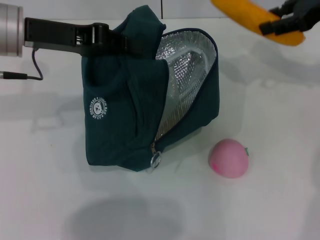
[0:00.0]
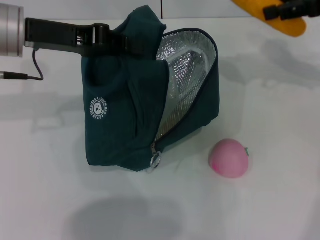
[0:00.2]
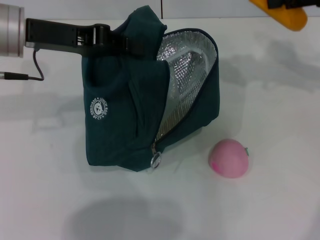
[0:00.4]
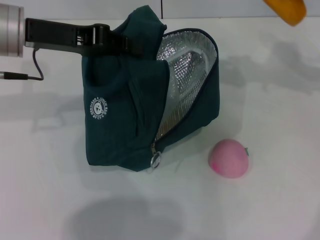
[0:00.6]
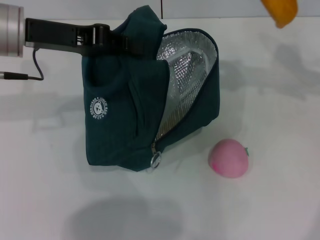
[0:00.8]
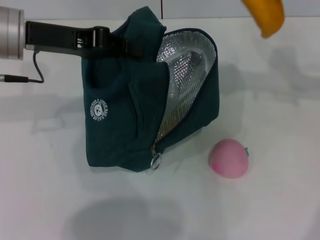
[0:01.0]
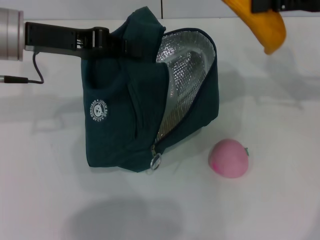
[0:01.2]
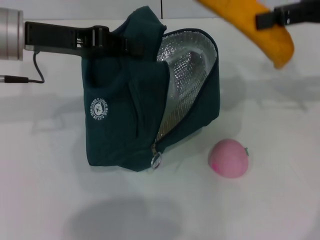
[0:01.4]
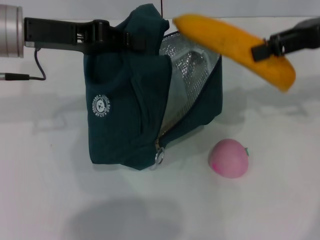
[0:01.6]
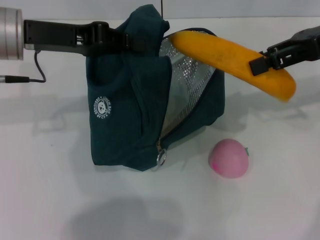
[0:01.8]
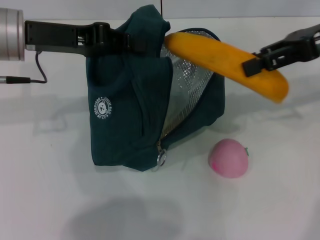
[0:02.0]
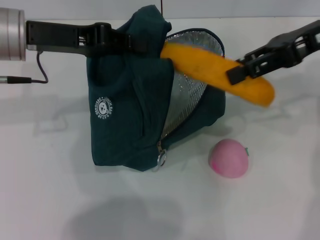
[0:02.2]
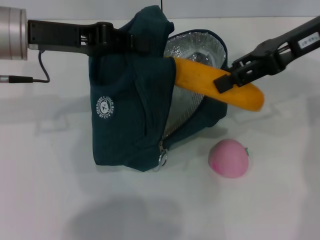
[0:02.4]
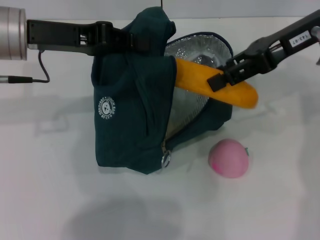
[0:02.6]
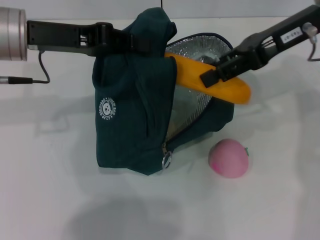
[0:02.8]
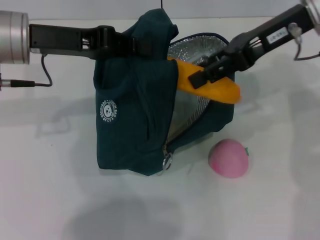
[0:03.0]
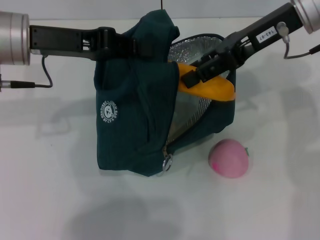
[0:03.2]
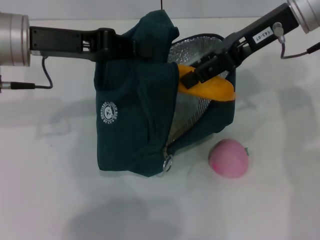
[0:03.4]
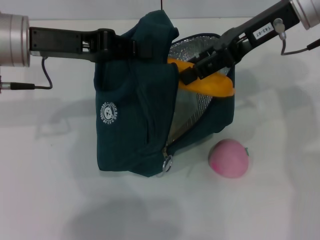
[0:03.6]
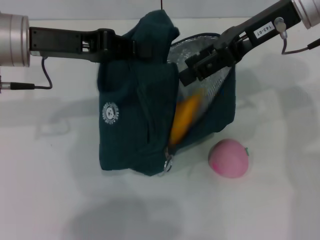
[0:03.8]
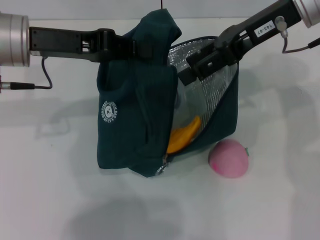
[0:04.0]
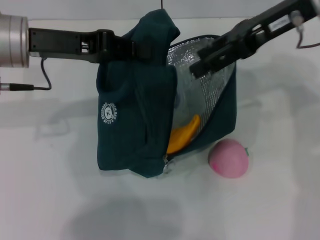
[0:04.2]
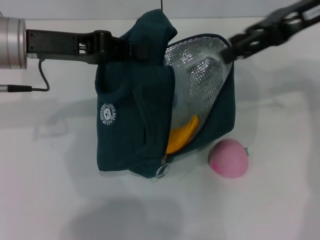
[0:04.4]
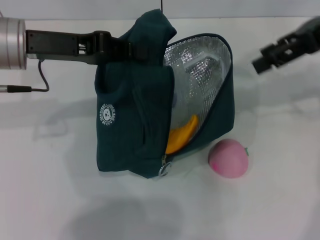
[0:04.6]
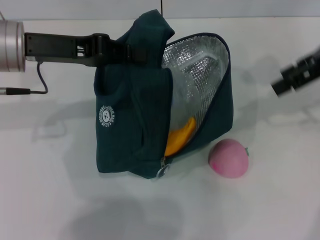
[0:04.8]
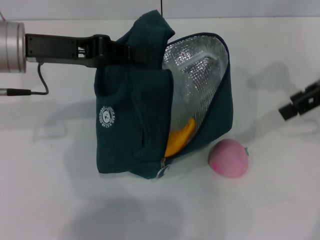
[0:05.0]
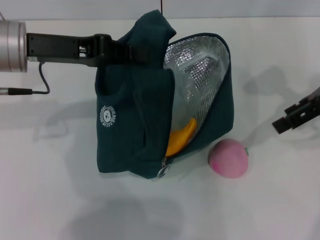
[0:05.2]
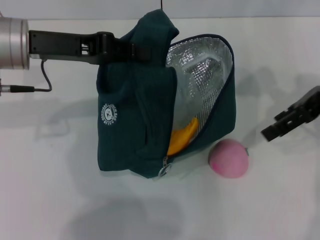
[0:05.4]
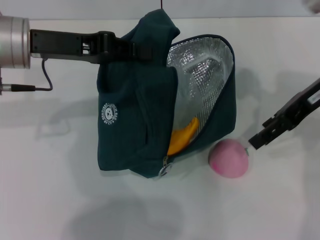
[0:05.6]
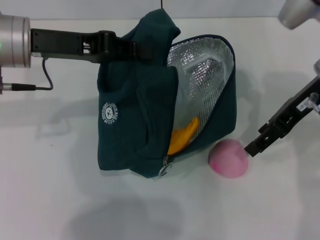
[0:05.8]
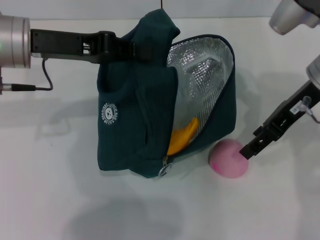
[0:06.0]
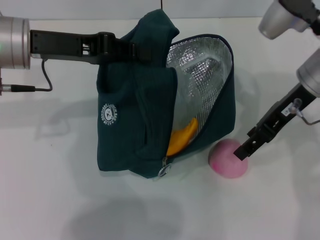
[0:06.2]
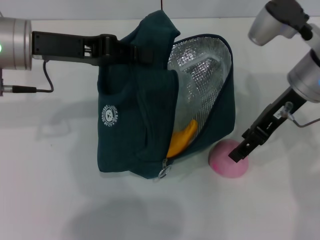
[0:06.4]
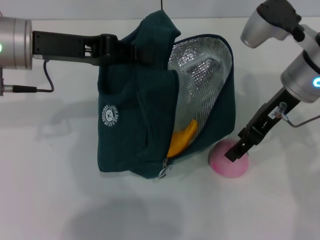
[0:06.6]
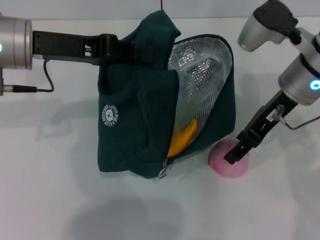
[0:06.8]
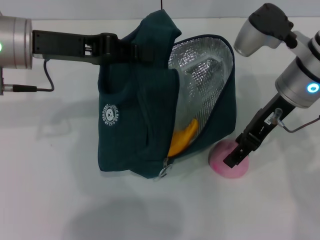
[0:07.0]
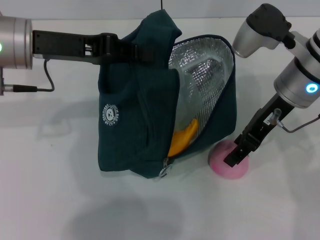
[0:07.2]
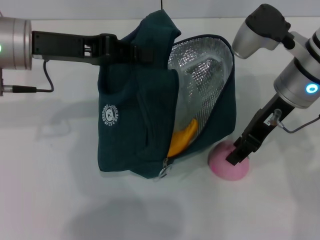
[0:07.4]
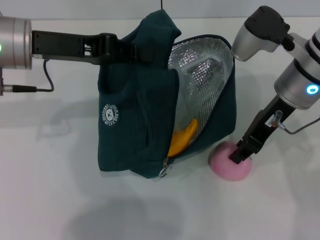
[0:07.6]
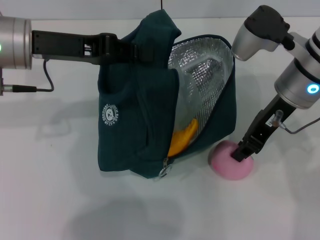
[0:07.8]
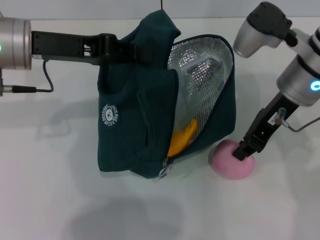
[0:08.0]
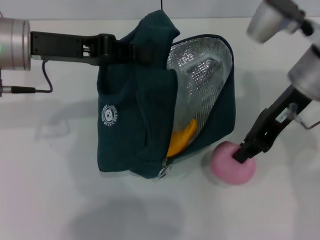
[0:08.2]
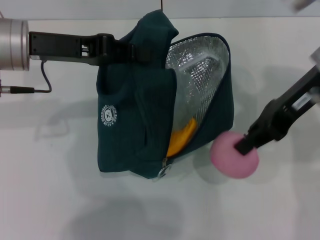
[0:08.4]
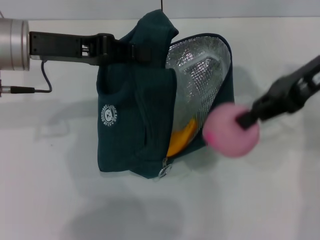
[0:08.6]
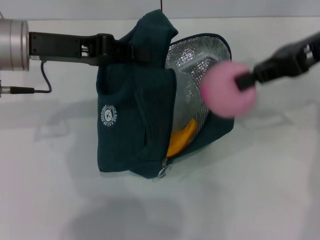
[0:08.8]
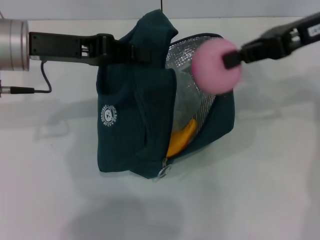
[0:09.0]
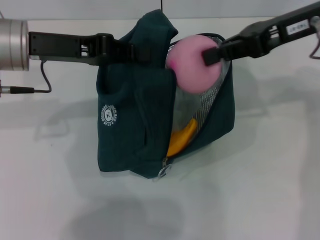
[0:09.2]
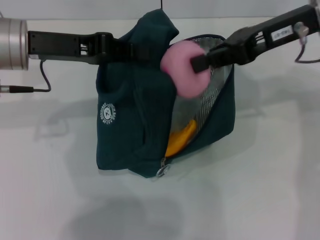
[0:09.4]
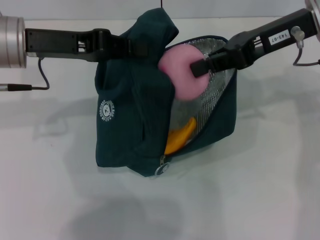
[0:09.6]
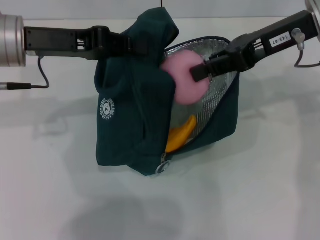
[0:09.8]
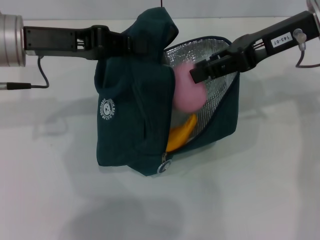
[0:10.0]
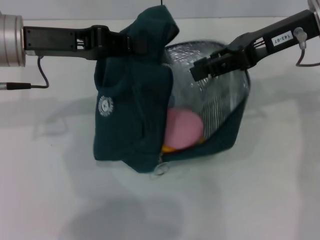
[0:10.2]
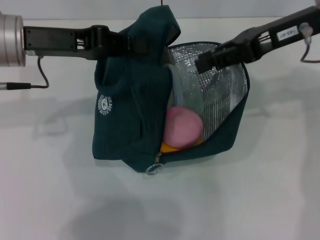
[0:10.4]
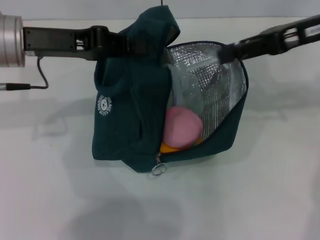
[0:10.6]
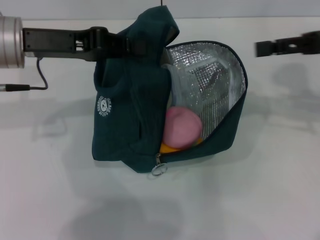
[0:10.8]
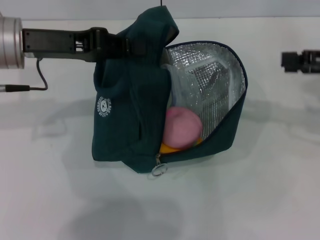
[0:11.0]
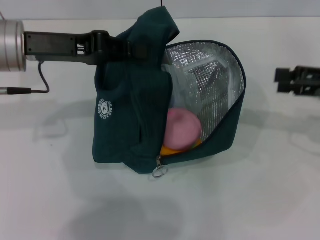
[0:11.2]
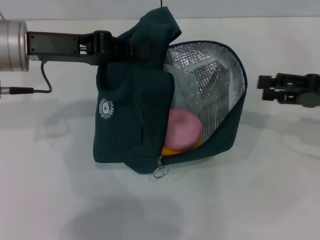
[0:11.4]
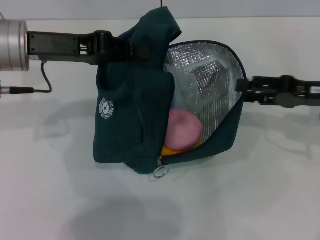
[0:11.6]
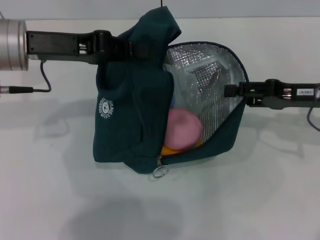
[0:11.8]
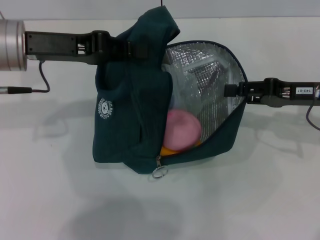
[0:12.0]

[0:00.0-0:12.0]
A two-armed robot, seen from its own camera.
Step, 0:00.0 to 0:04.0: Put the banana into the lunch bag with your right hand.
Step, 0:04.2 to 0:07.8: Grab the peach with your right hand.
0:01.6 to 0:03.0: The right gripper travels to the left by about 10 cm.
0:03.0 to 0:04.4: The right gripper ends up some 5 cm from where it was.
0:04.4 to 0:06.0: The right gripper is displaced downward by roughly 10 cm.
0:06.0 to 0:07.6: The right gripper closes its fingers.
0:07.6 to 0:09.0: The right gripper travels upward and to the right by some 10 cm, and closes its fingers.
0:09.0 to 0:10.4: There are only small adjustments of the grippers.
0:10.4 to 0:12.0: The right gripper travels downward and to the right by approximately 15 cm, and opens its fingers.

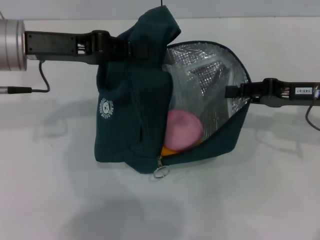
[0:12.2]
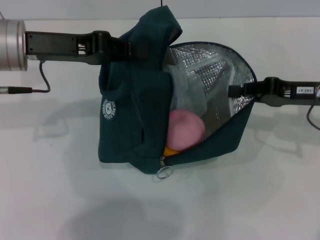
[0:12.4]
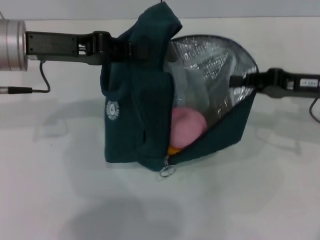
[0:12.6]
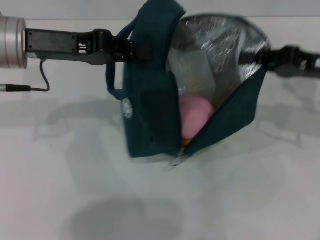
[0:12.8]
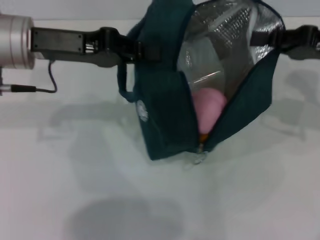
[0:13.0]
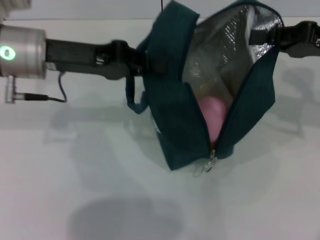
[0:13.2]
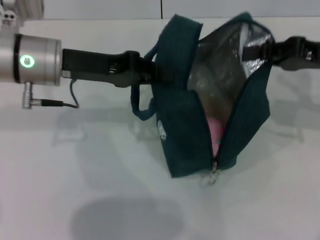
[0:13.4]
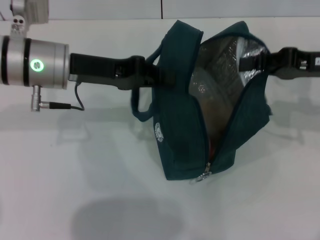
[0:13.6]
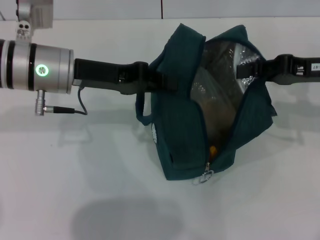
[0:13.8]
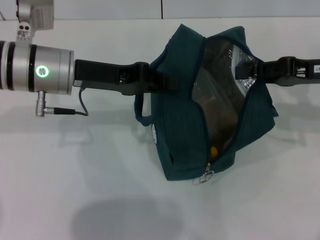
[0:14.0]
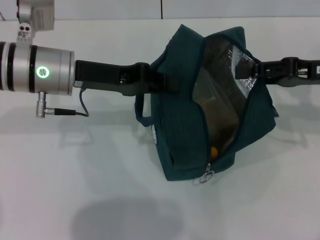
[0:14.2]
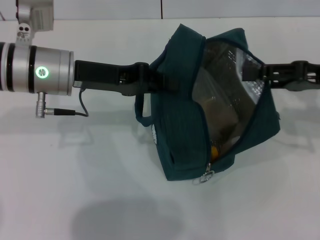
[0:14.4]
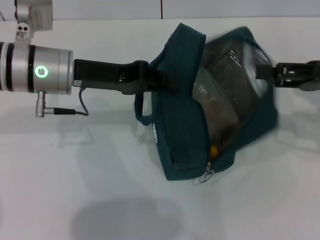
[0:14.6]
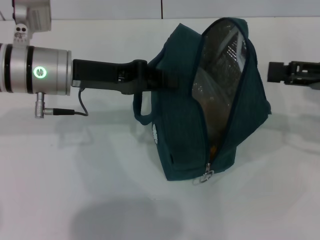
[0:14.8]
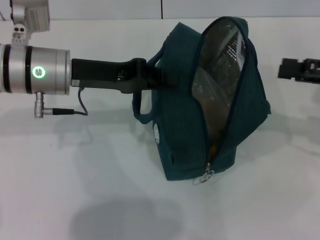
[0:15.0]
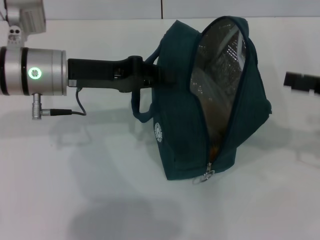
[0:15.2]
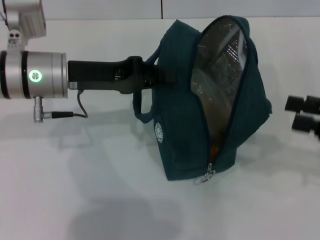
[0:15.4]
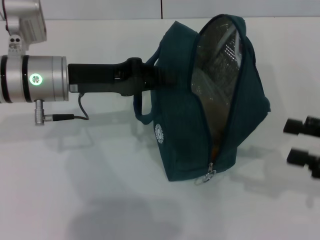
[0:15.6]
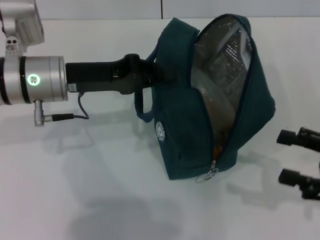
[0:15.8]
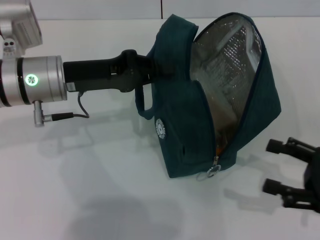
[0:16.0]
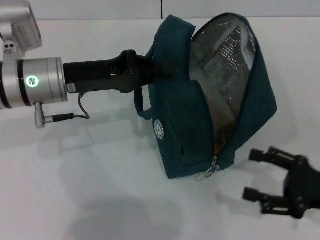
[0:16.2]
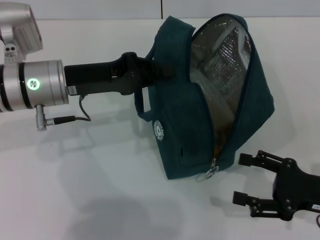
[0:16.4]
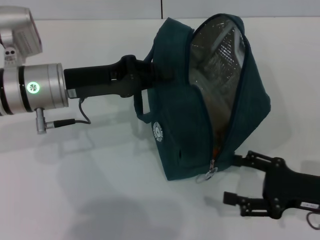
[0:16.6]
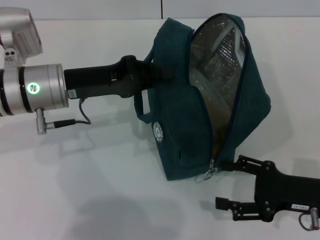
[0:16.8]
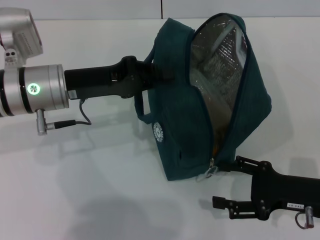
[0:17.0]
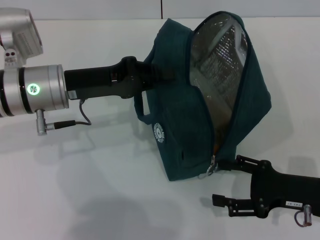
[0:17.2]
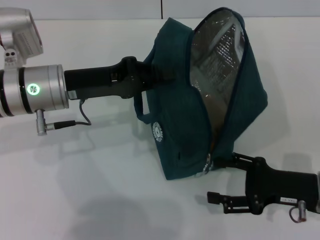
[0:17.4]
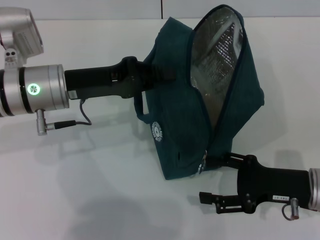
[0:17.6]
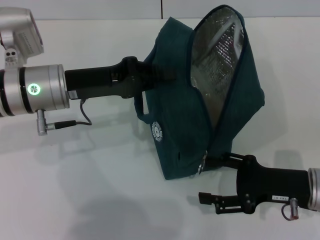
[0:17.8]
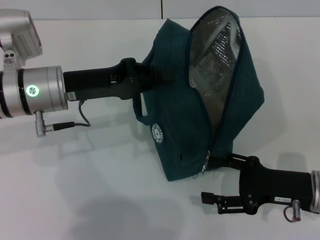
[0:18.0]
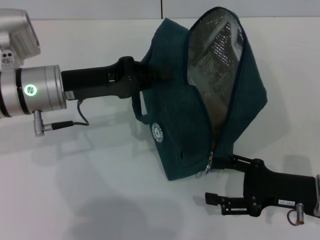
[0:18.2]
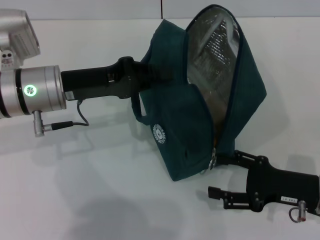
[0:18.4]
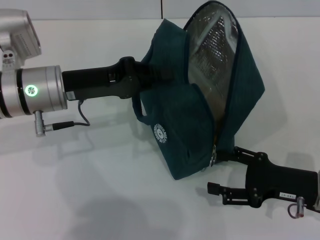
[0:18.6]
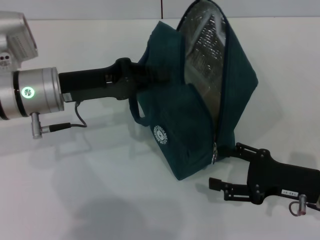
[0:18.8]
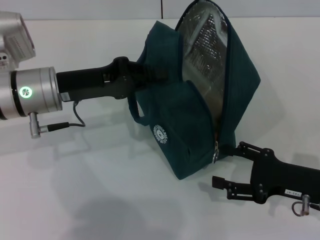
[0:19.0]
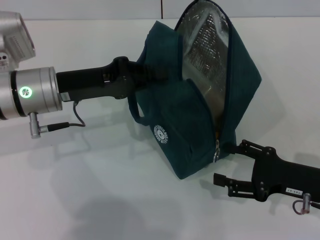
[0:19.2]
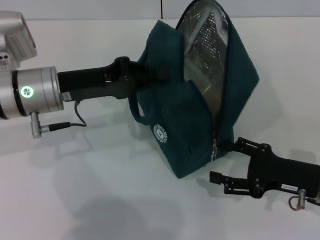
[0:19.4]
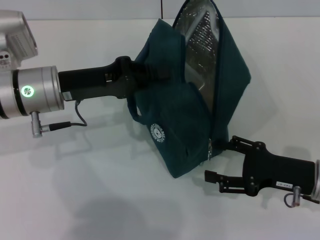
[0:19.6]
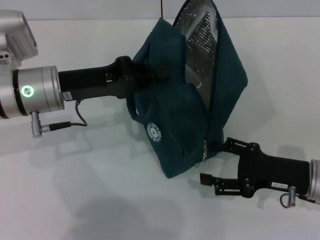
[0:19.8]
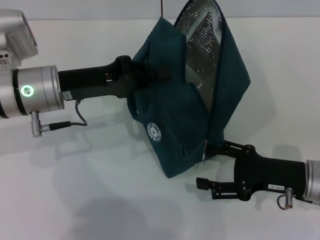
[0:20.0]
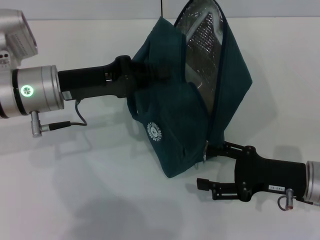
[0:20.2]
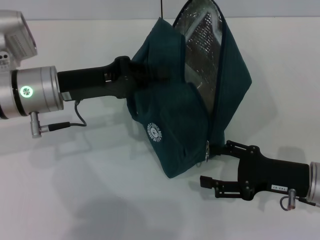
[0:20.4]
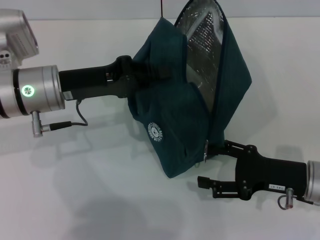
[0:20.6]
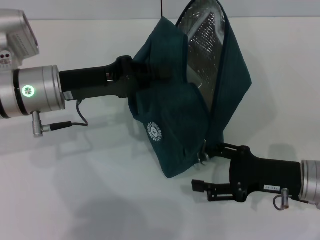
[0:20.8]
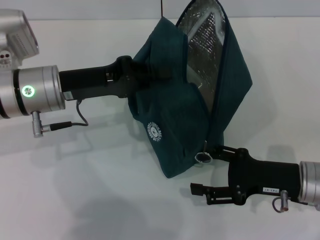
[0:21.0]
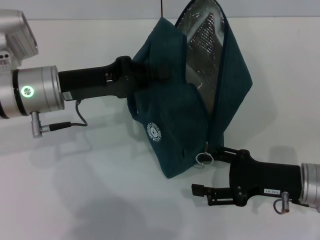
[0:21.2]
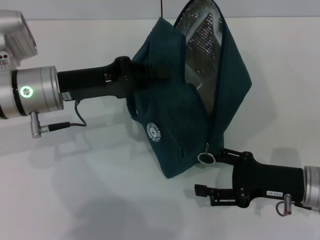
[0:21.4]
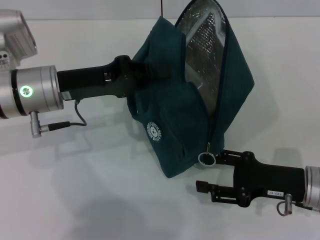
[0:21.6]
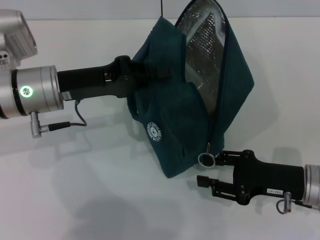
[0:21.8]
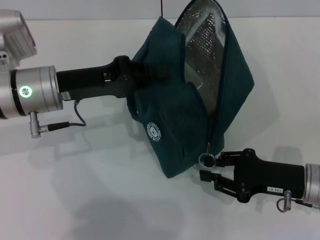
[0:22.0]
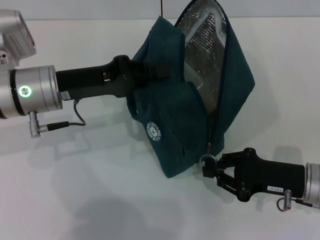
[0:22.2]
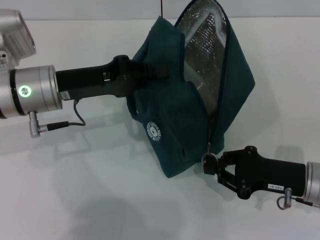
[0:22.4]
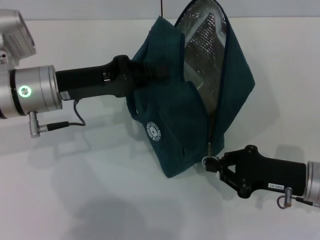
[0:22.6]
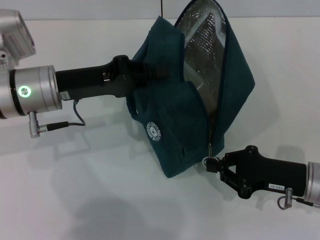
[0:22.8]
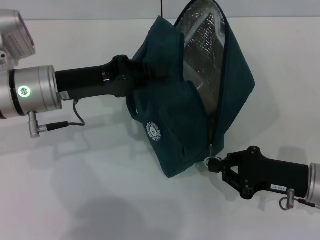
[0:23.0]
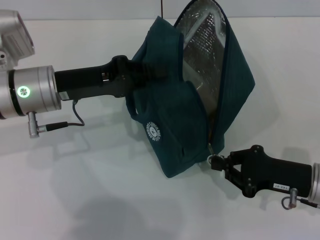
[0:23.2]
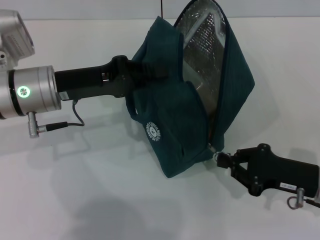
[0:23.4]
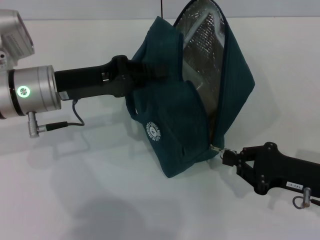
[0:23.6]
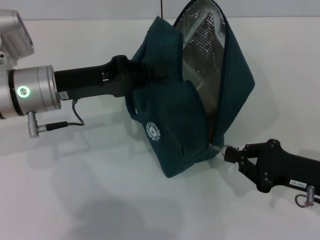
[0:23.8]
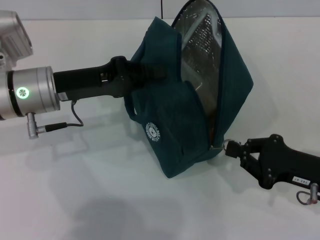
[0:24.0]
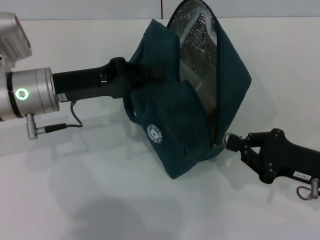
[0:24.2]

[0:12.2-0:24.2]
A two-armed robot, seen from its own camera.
Step, 0:12.2 to 0:14.6: Hold the lunch bag with your right hand.
0:12.2 to 0:13.8: The left gripper shifts by roughly 5 cm, while the right gripper closes.
0:13.8 to 0:15.2: The right gripper travels backward and to the right by about 10 cm, and opens.
0:15.2 to 0:16.6: The right gripper travels downward, backward and to the left by roughly 15 cm.
0:16.6 to 0:19.8: The grippers make only small movements.
0:19.8 to 0:21.2: Both grippers stay about where they are.
0:21.2 to 0:22.6: The right gripper closes up.
0:22.6 to 0:24.2: There are only small adjustments of the grippers.
